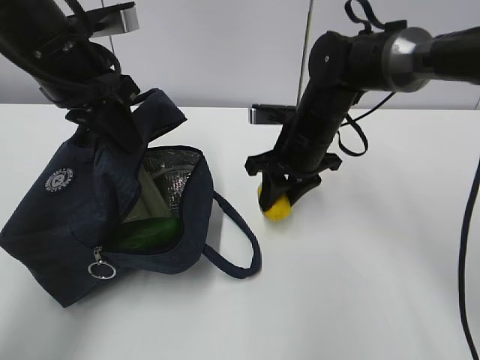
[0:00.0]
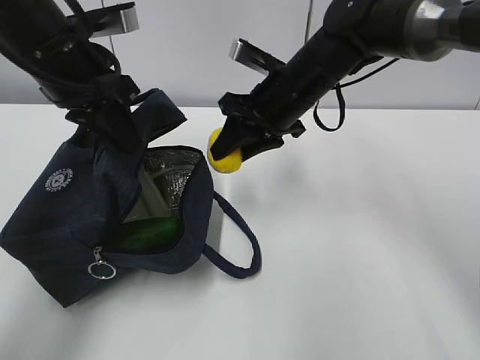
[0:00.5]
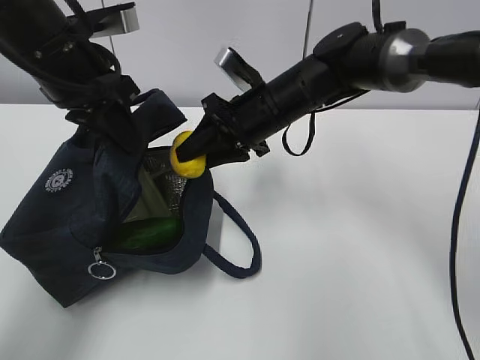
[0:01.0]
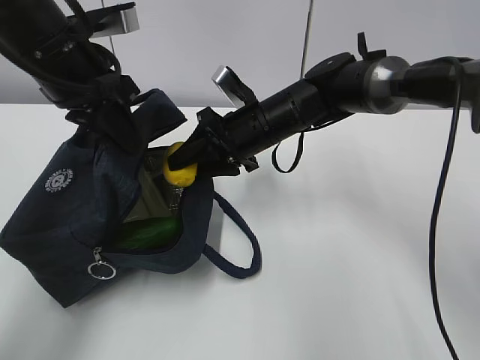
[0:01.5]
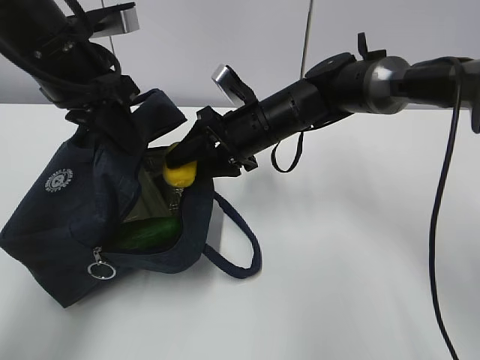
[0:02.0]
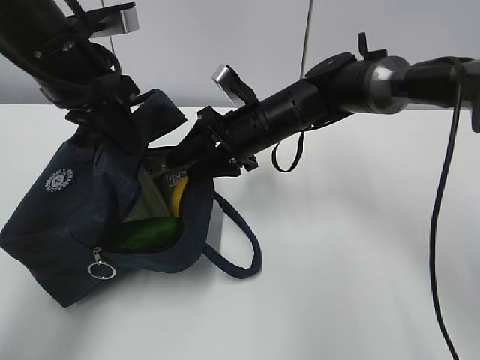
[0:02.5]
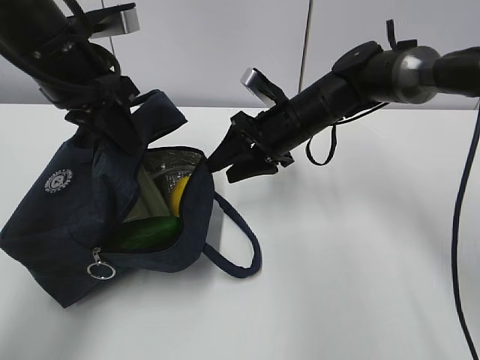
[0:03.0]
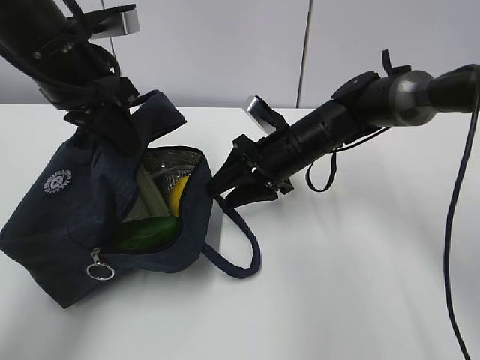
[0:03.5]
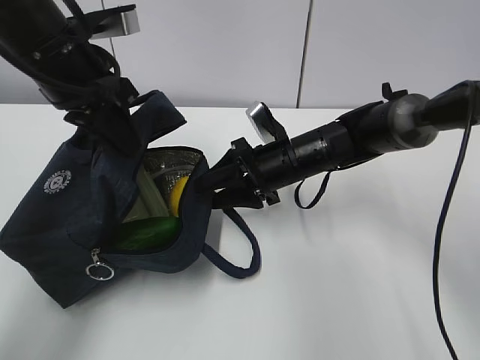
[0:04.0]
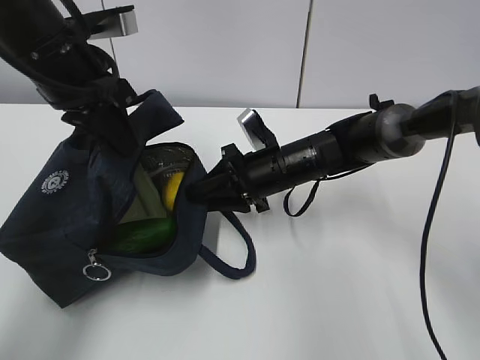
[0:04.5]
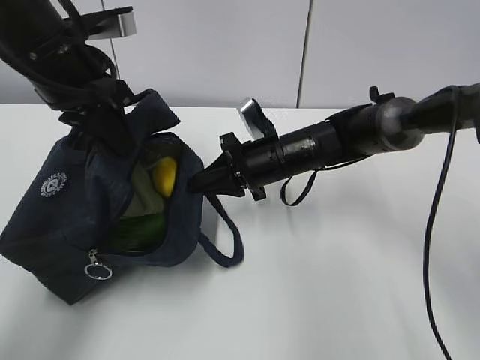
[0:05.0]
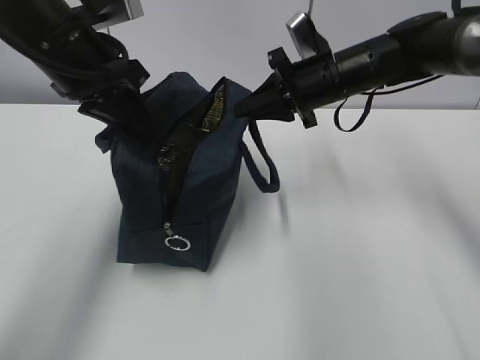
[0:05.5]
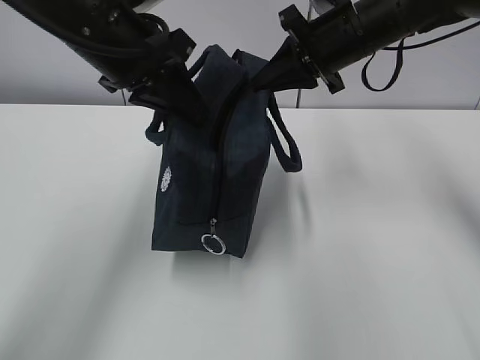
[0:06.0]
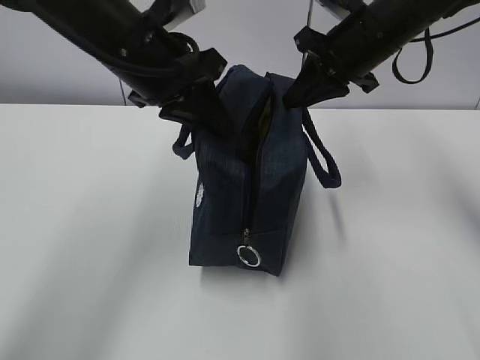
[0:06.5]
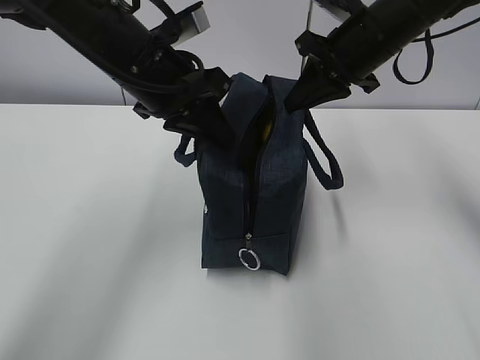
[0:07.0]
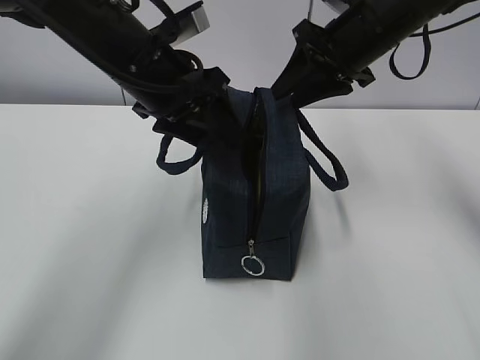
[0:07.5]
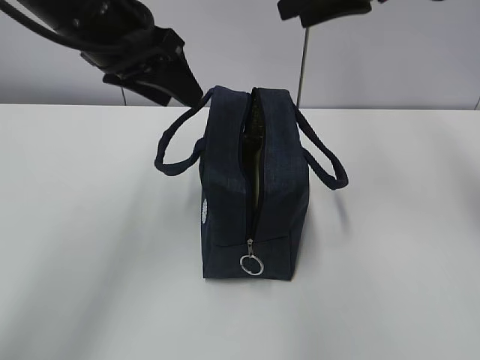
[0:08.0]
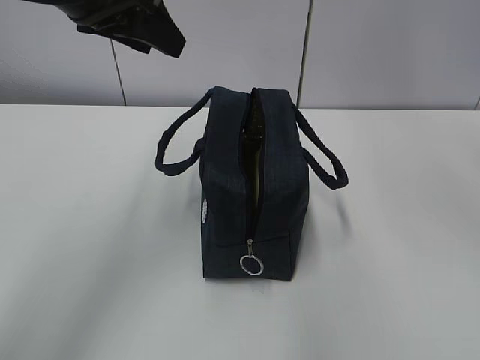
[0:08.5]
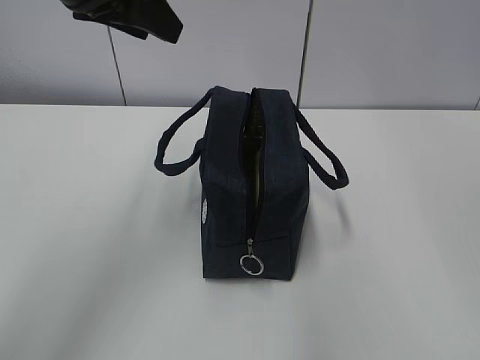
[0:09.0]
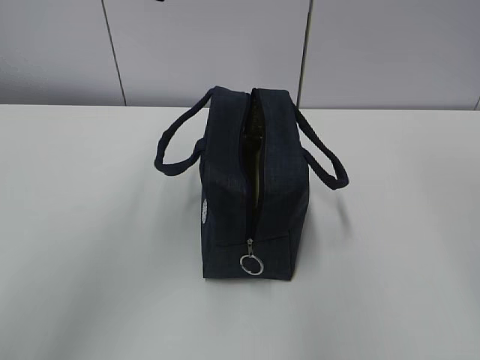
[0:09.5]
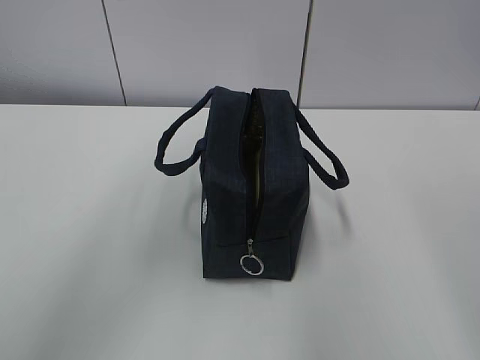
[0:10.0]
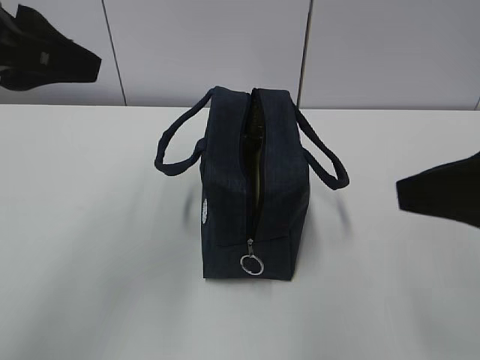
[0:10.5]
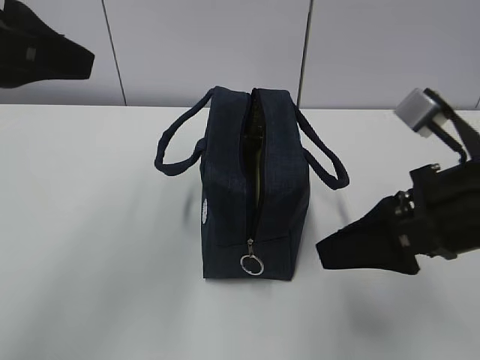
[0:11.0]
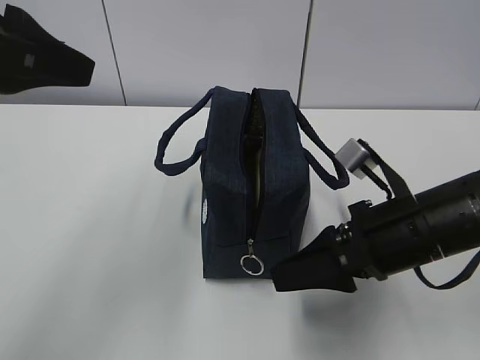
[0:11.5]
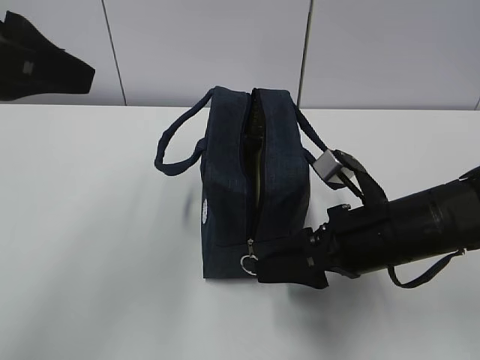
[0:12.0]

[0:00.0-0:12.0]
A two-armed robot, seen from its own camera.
0:00.0 to 0:02.0: The right gripper moves to the left, approximately 5 cm.
0:02.0 to 0:04.0: The right gripper moves about 5 cm.
0:04.0 to 0:06.0: The left gripper ends up roughly 5 cm from where it was. Meanwhile the right gripper travels upward by approximately 15 cm, and closes up.
0:06.0 to 0:08.0: The left gripper opens up; the right gripper heads upward, covering about 10 cm, and opens.
0:08.0 to 0:10.0: The left gripper heads upward and backward, covering roughly 10 cm, while the right gripper travels backward by about 30 cm.
0:10.0 to 0:12.0: The right gripper travels downward and forward by some 25 cm; the left gripper heads backward, covering approximately 5 cm.

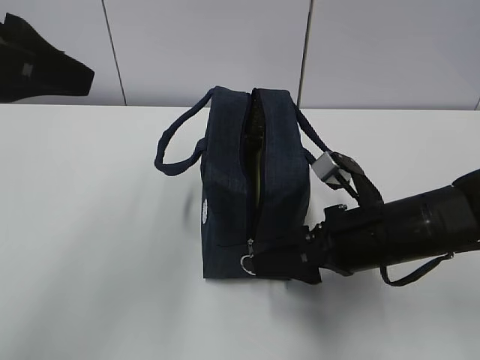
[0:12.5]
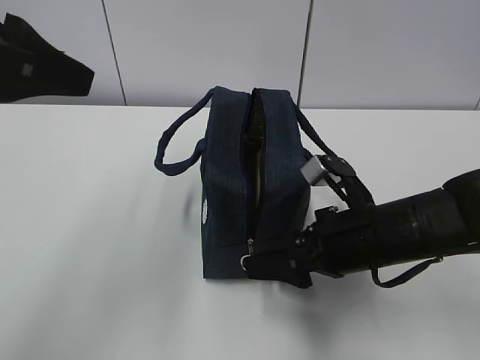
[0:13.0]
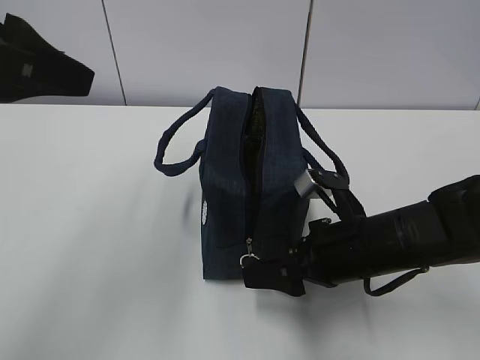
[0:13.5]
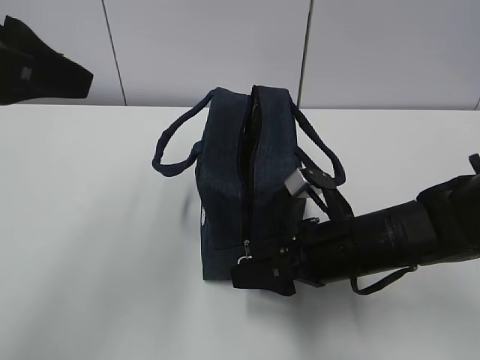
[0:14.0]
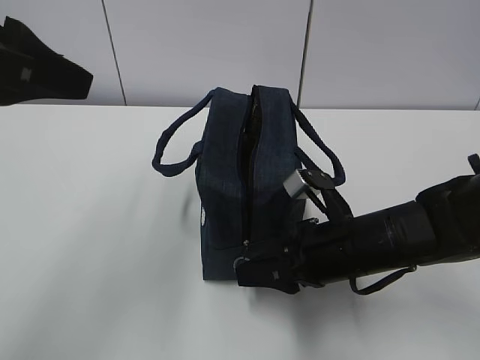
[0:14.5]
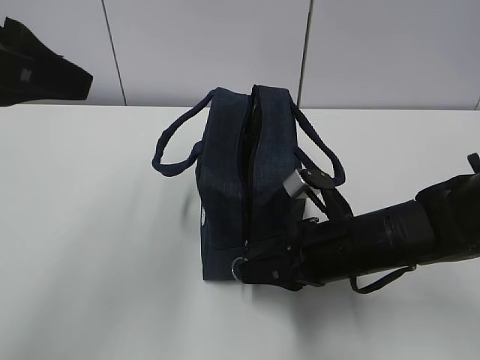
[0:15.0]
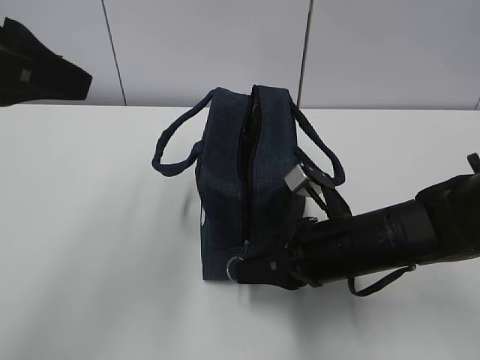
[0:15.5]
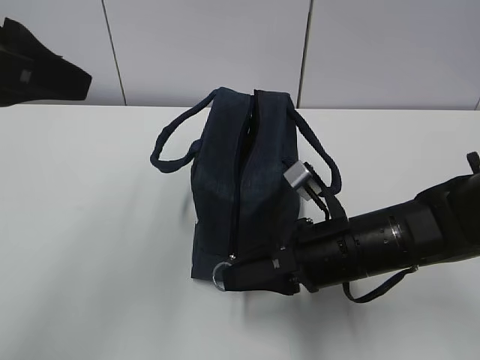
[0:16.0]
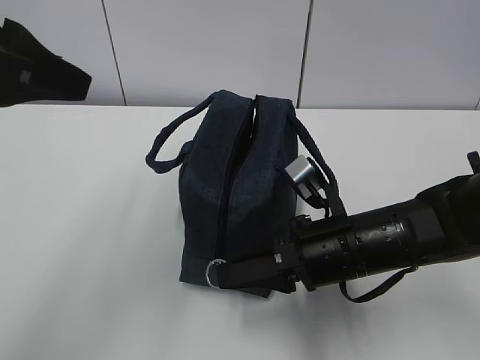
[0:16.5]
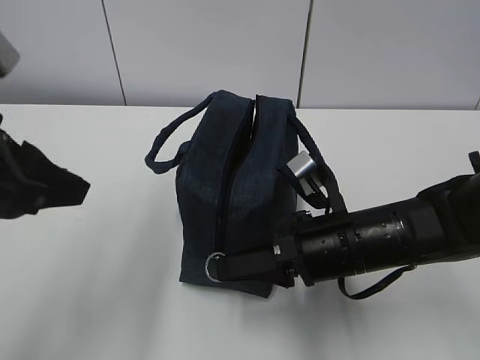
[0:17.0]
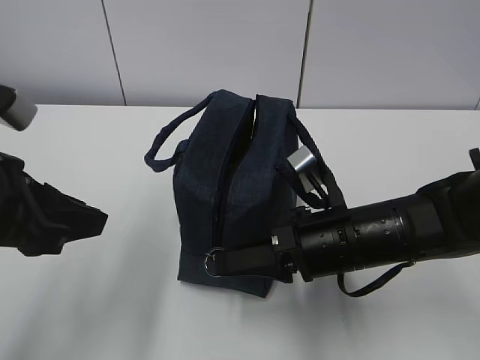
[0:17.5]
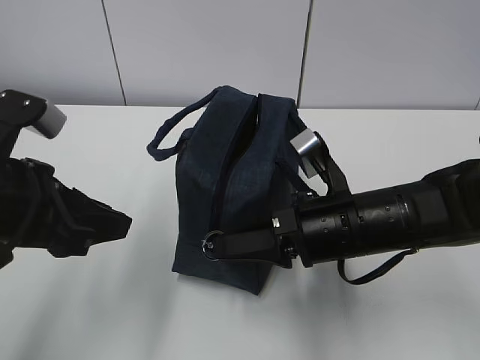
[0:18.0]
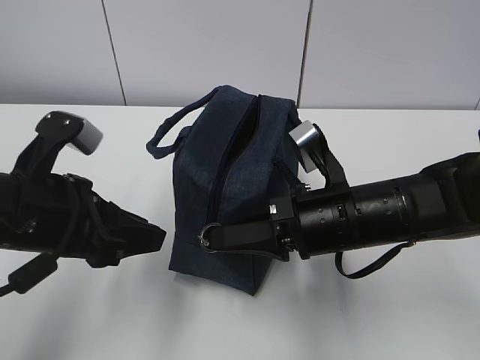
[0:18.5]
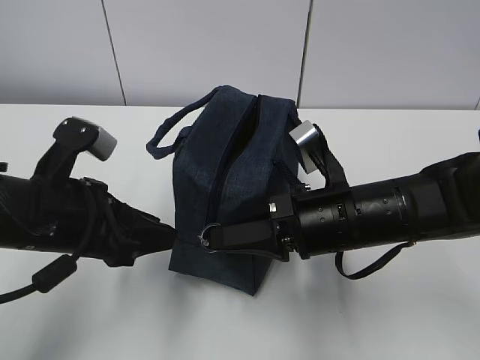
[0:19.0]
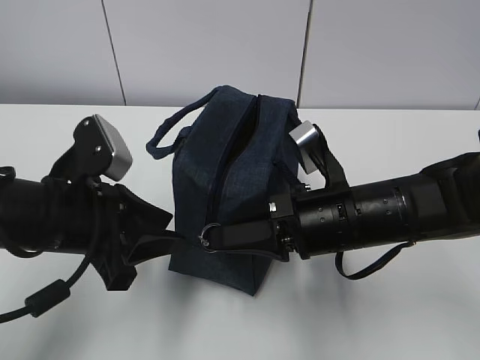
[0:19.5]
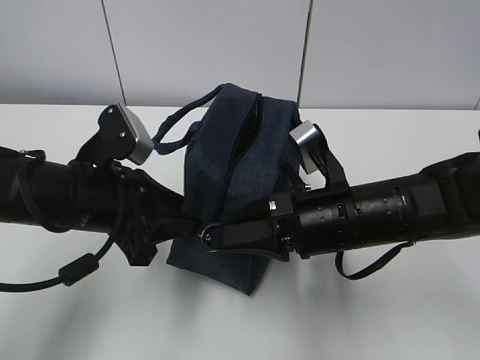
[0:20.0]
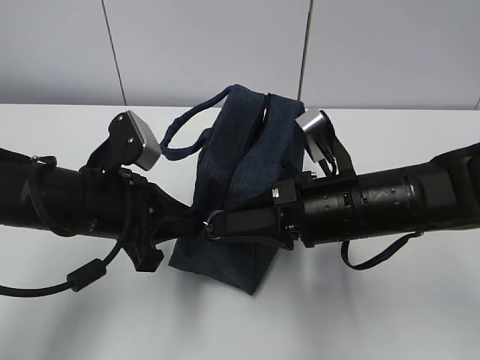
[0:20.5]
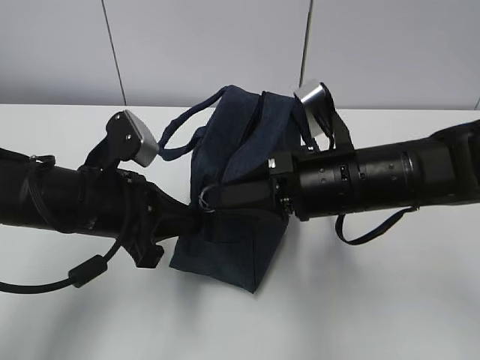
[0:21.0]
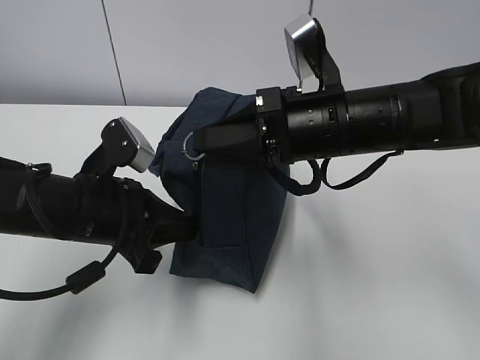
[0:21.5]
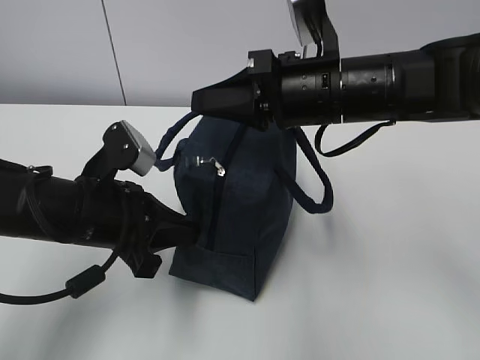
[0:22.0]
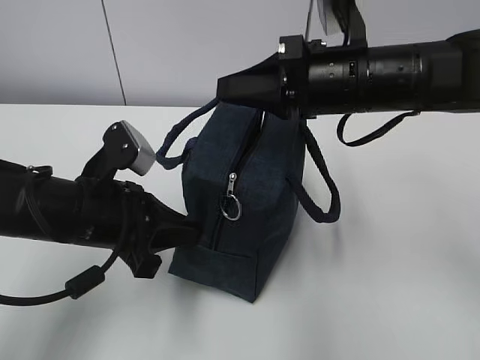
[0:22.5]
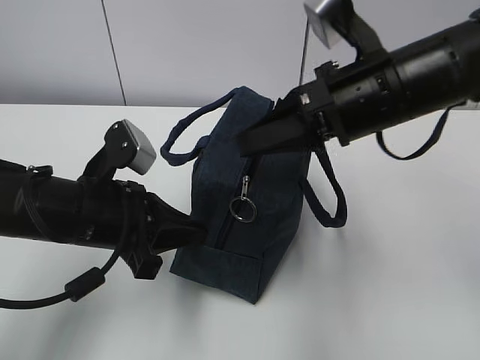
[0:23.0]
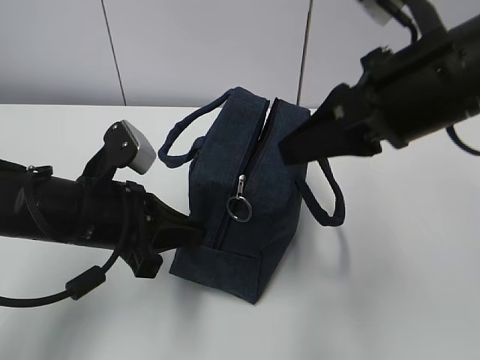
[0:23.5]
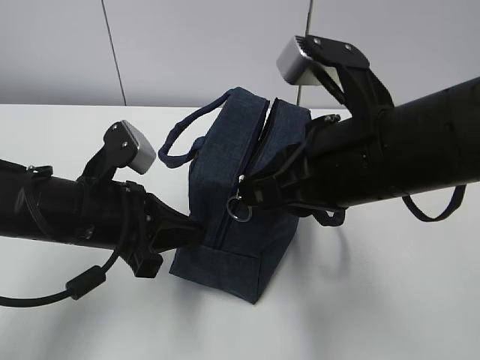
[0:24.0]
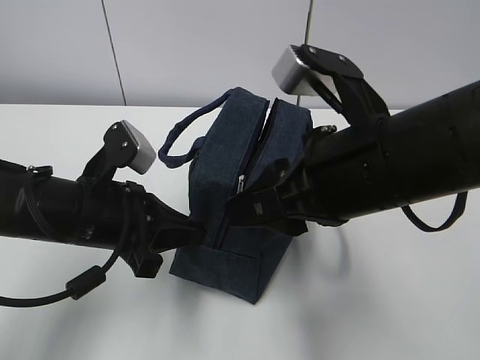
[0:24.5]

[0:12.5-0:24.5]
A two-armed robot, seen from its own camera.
Step, 0:12.5 to 0:21.5: Grab the lunch bag with your left hand.
0:12.5 to 0:14.5: The right gripper closes.
0:14.5 to 0:16.5: The grippers make only small movements.
0:16.5 to 0:18.5: The left gripper travels downward by approximately 15 cm.
0:18.5 to 0:20.5: The left gripper moves approximately 5 cm, and closes its fingers.
0:20.5 to 0:22.5: The right gripper moves upward and forward, some 10 cm.
0:22.5 to 0:24.5: The right gripper heads backward, covering roughly 10 cm, and opens up.

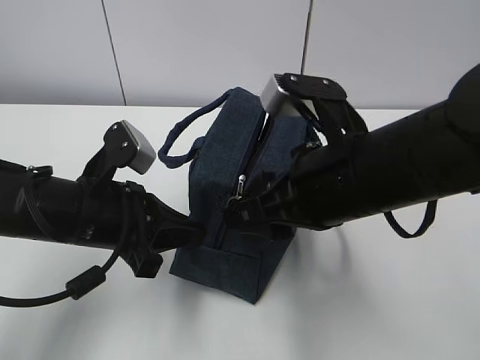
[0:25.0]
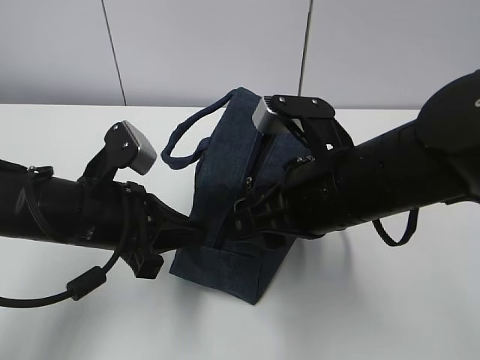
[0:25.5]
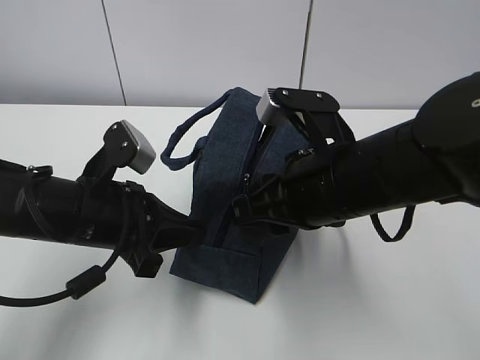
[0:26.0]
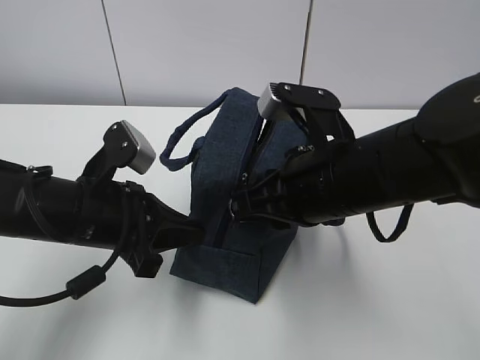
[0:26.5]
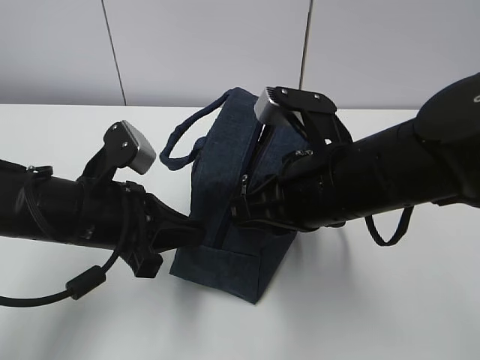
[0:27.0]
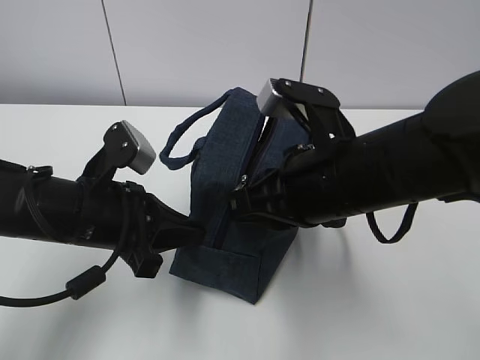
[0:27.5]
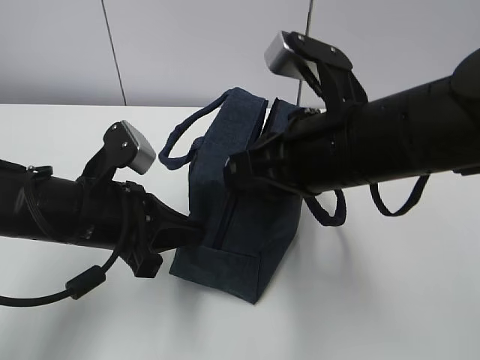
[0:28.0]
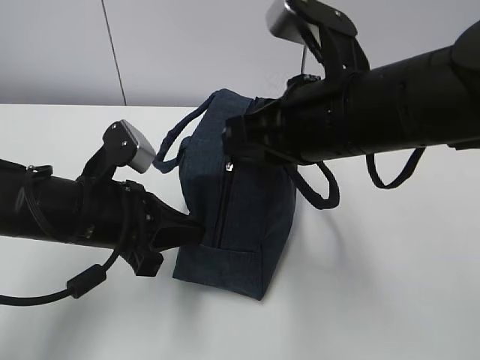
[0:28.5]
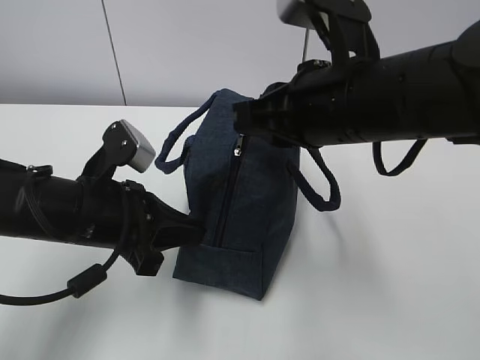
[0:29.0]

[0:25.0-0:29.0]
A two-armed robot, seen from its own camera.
Step, 0:25.0 to 0:27.0: Pull the zipper with your right hand.
0:25.0 to 0:27.0: The right gripper closes.
0:27.0 to 0:29.0: The right gripper is displaced upward by approximately 5 cm.
